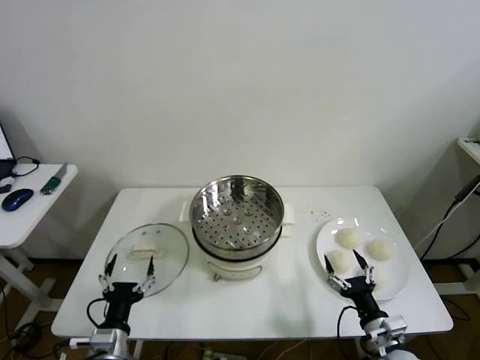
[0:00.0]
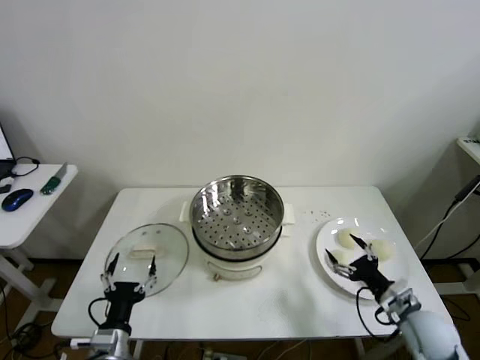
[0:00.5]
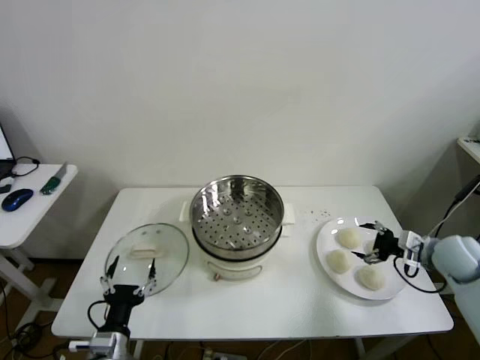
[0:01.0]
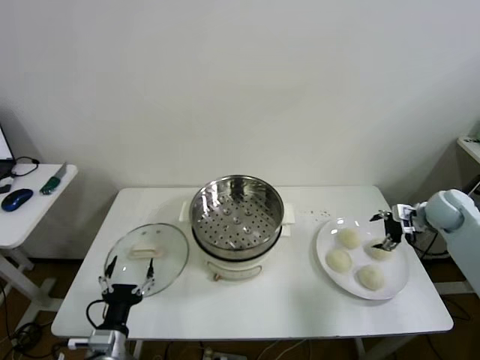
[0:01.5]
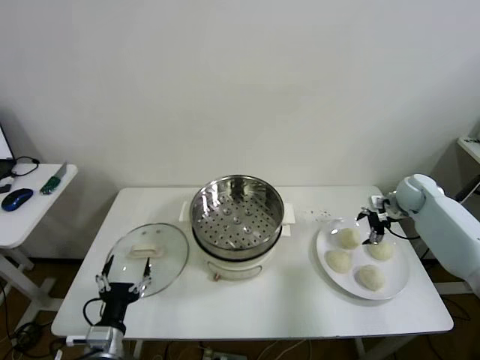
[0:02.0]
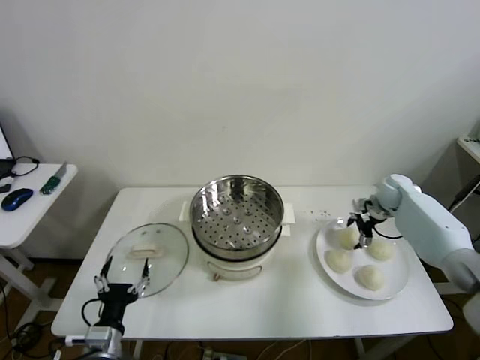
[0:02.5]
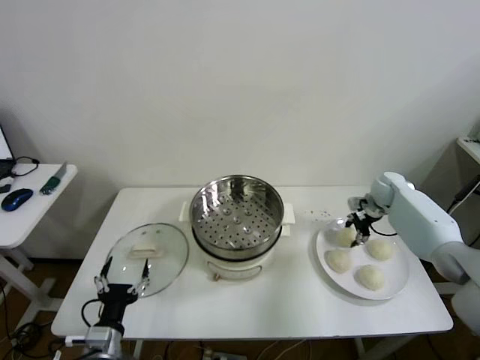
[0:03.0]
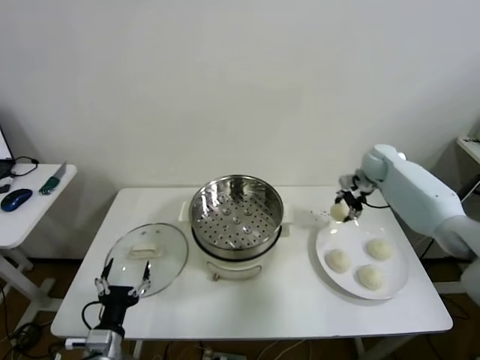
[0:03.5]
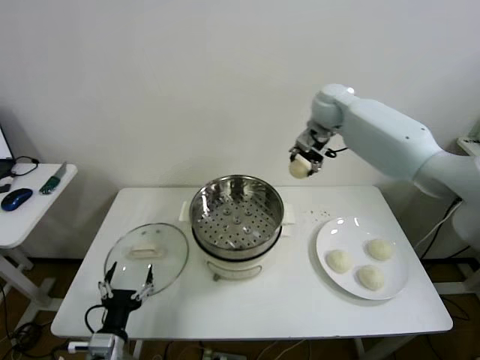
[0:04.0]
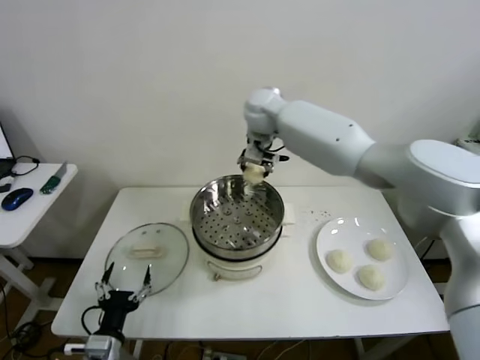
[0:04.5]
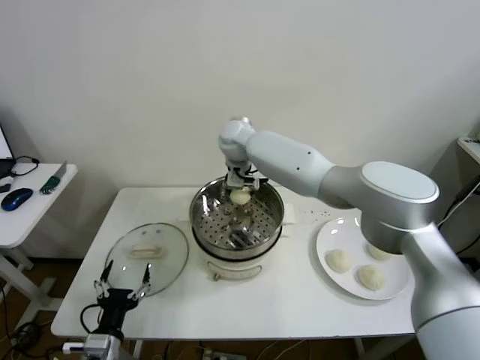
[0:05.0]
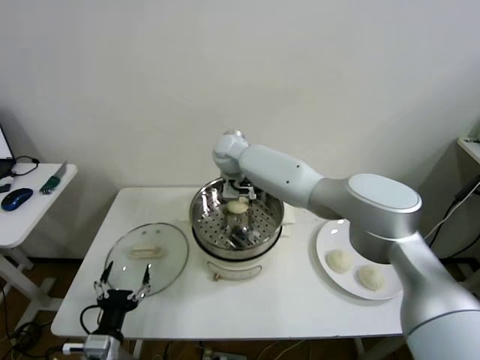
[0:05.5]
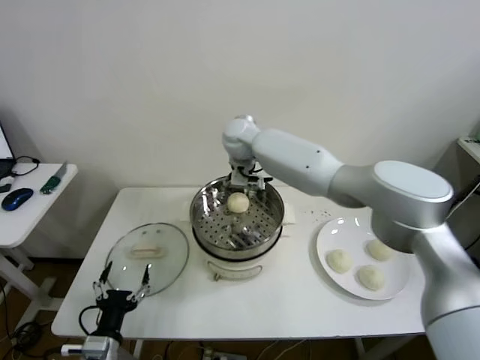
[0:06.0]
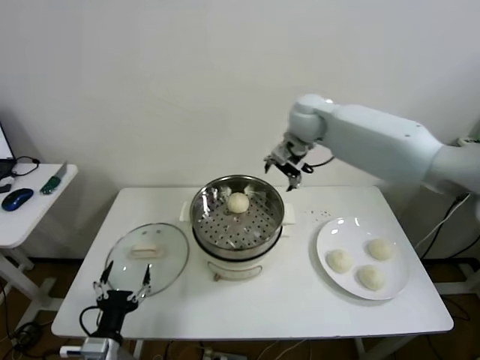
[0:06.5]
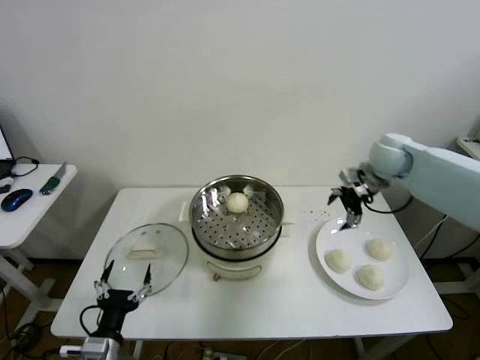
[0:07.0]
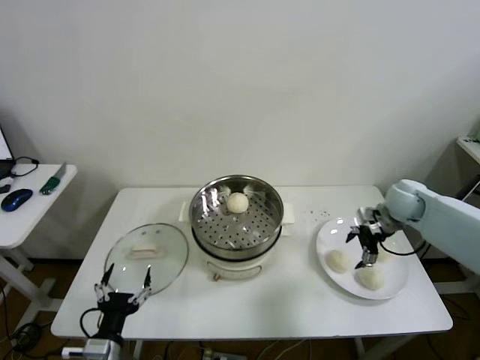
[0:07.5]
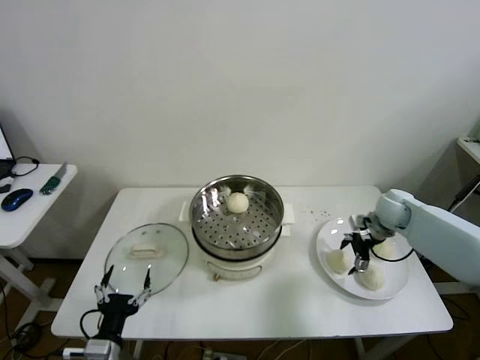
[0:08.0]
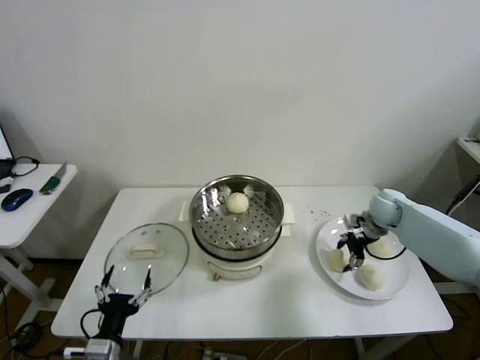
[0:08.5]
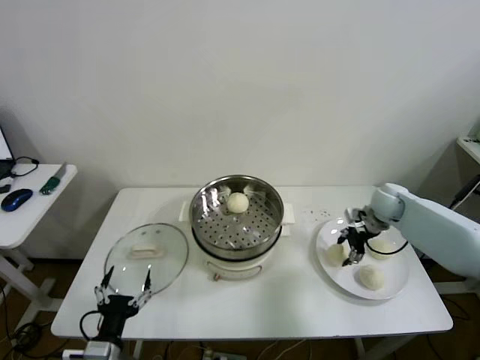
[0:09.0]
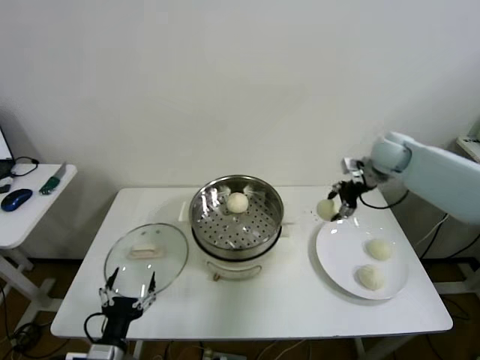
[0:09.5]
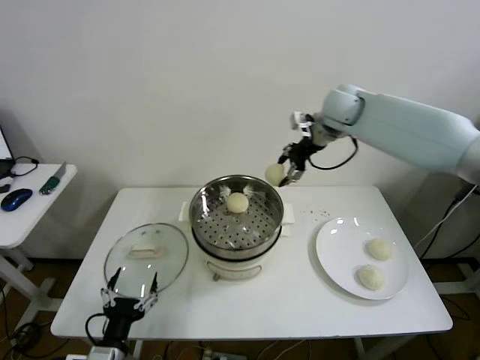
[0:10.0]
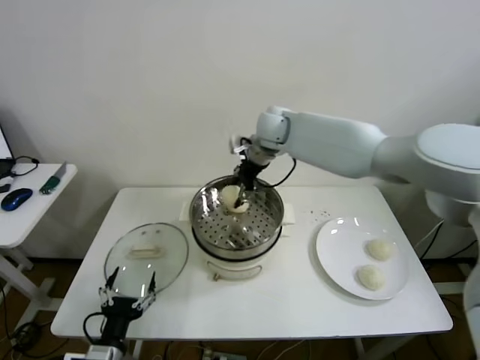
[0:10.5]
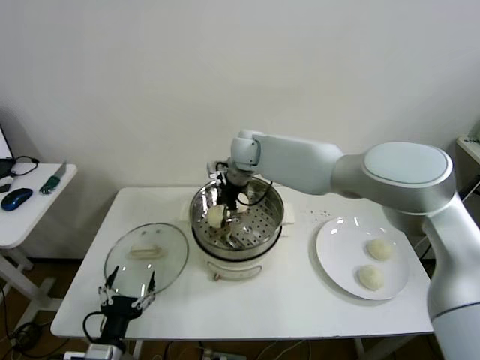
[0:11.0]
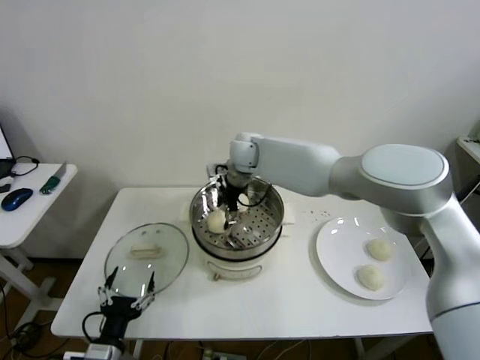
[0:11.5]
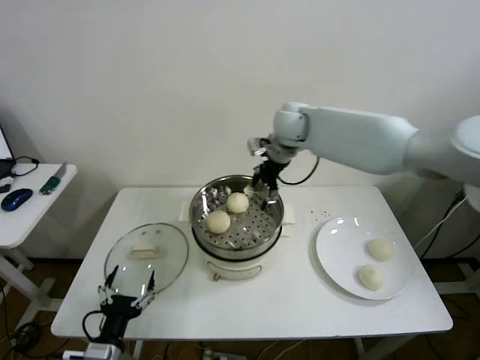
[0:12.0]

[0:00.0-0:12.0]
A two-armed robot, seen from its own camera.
Step, 0:00.0 to 0:02.5: Grasp the baozi in the plate with right gripper.
Step, 0:03.0 to 0:05.5: Place the baozi on the steamer with right gripper.
Step, 0:06.0 to 0:08.0: Grasp the baozi in the plate with right gripper.
Step, 0:09.0 to 0:11.0: Place the baozi on the steamer with right gripper.
0:02.0 to 0:04.0: The right gripper moves to the left and upward, about 35 cm, and closes up.
0:04.0 to 0:06.0: The right gripper goes some 20 cm to the left, and opens its fingers.
0:06.0 to 0:08.0: The right gripper travels to the right and downward by approximately 40 cm.
0:08.0 to 0:10.0: The right gripper moves upward and to the left, roughly 30 cm, and closes.
0:10.0 to 0:12.0: The right gripper heads to the left, covering about 10 cm, and opens its fingers.

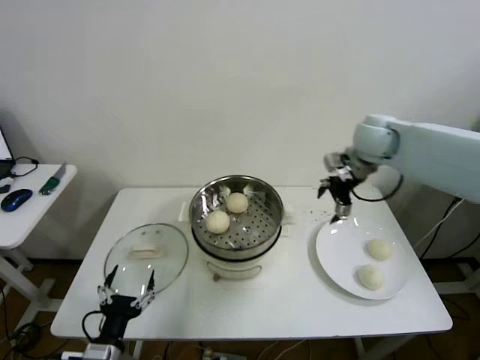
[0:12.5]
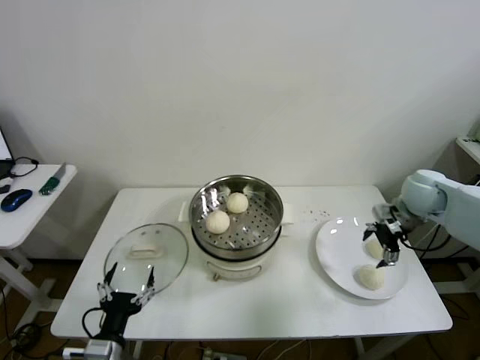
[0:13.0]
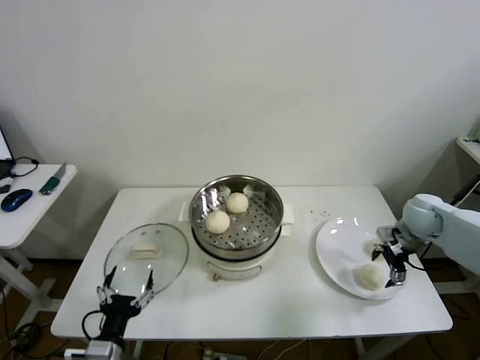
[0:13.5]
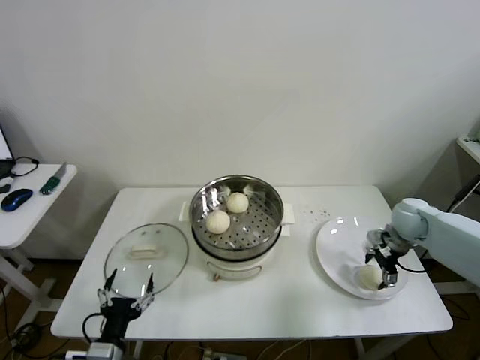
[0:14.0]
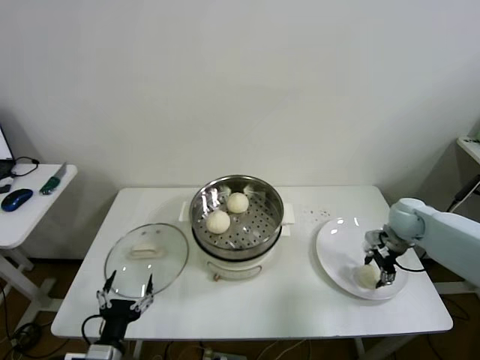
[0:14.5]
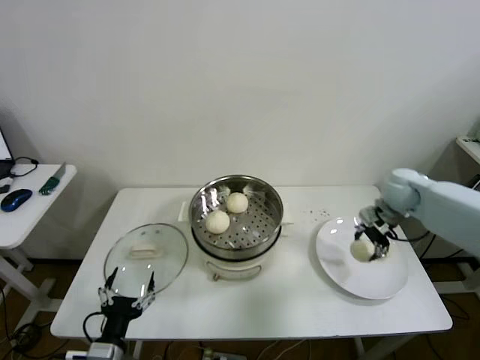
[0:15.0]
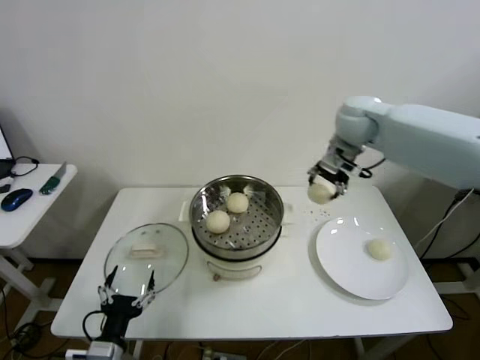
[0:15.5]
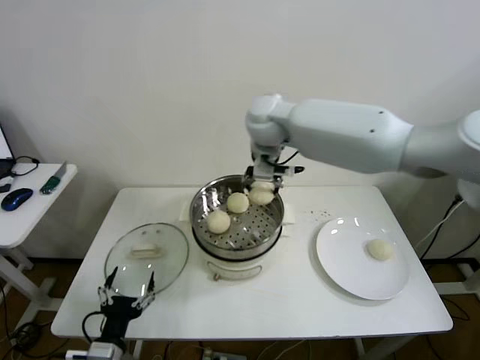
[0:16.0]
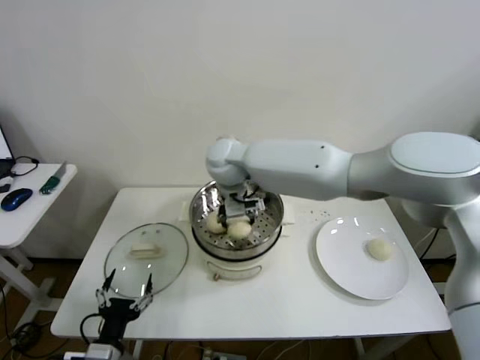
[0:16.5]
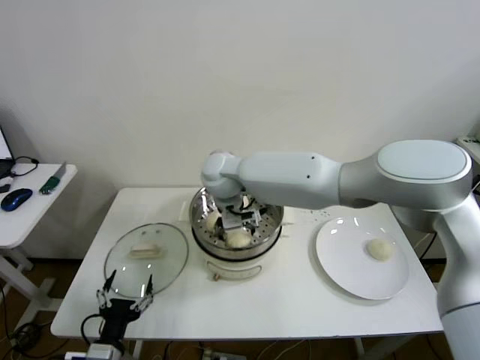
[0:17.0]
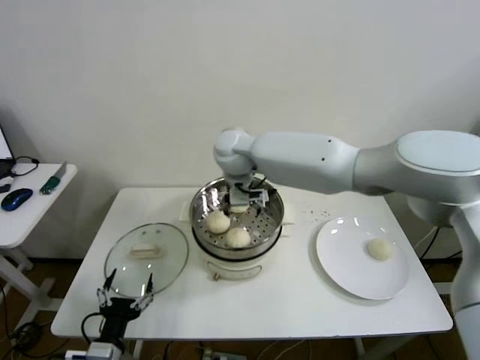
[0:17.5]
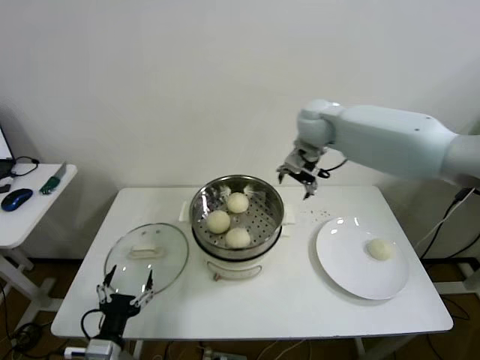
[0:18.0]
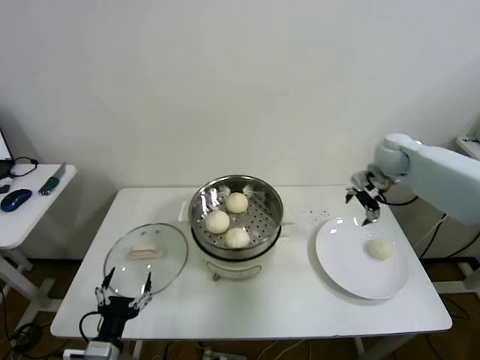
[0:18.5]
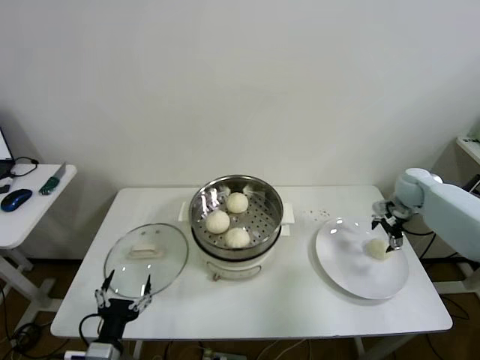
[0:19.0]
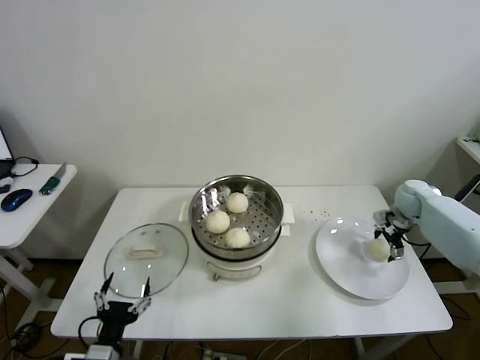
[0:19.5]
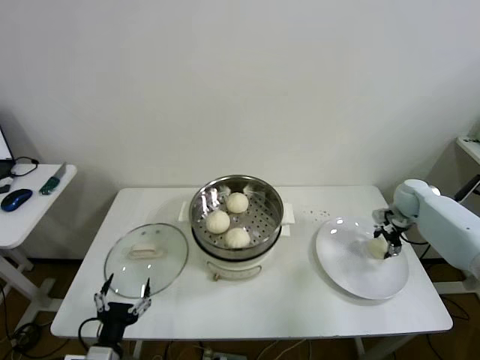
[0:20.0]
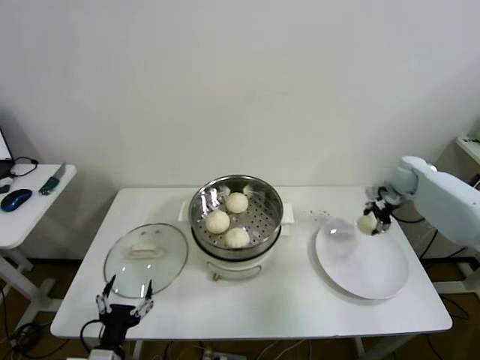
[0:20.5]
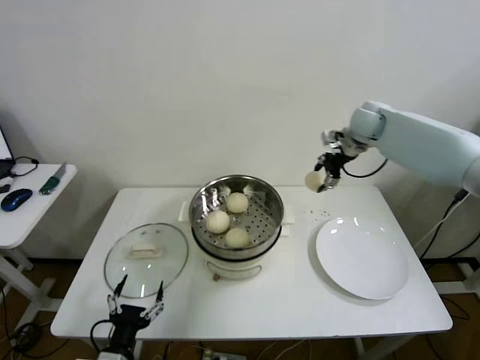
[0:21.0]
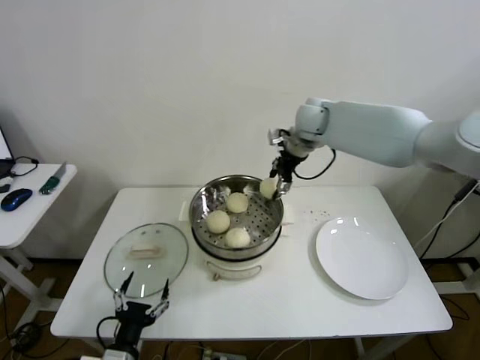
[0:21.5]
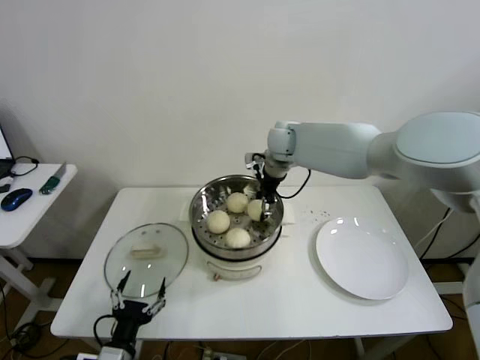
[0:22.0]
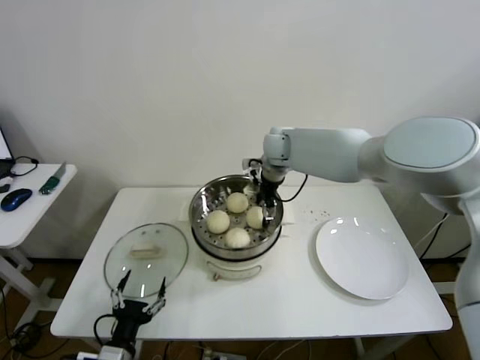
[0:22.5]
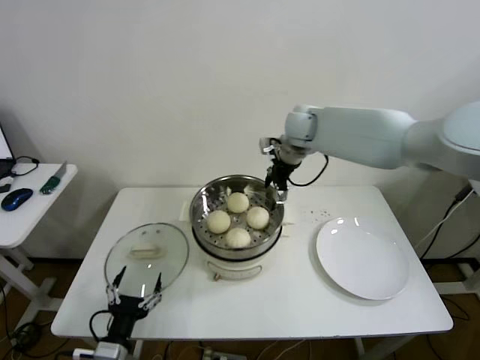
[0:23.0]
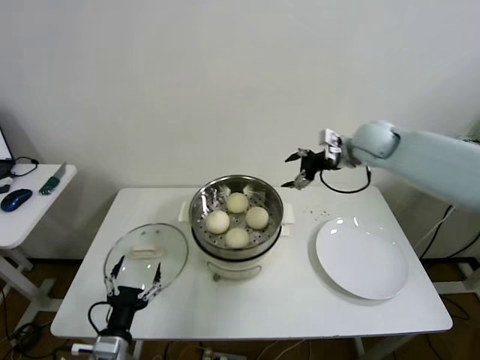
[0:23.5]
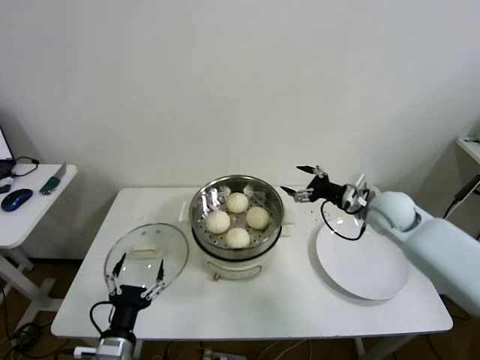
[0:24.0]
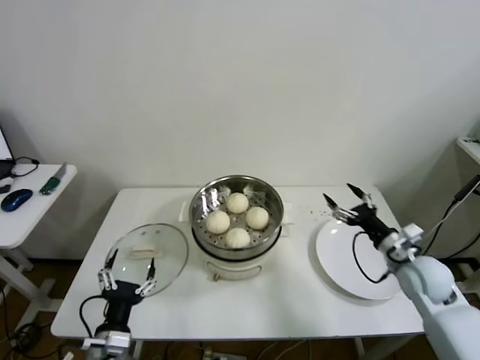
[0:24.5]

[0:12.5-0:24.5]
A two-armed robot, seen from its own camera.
Step, 0:12.5 to 0:14.0: Grasp the baozi in the plate with right gripper.
Step, 0:14.5 to 0:17.0: Place the baozi on the steamer with right gripper.
Step, 0:17.5 to 0:19.5: Grasp the baozi in the plate with right gripper.
Step, 0:20.0 to 0:22.0: Place the baozi on the steamer with right gripper.
0:12.5 to 0:14.5: The right gripper goes roughly 25 cm downward and to the right, and closes its fingers.
0:14.5 to 0:16.5: The right gripper moves to the left, roughly 40 cm.
0:16.5 to 0:18.5: The right gripper goes approximately 40 cm to the right, and opens its fingers.
0:18.5 to 0:20.5: The right gripper goes some 10 cm downward and to the right, and closes up.
0:20.5 to 0:22.5: The right gripper is displaced to the left by about 35 cm, and opens its fingers.
0:22.5 to 0:24.5: The right gripper goes roughly 40 cm to the right, backward and downward.

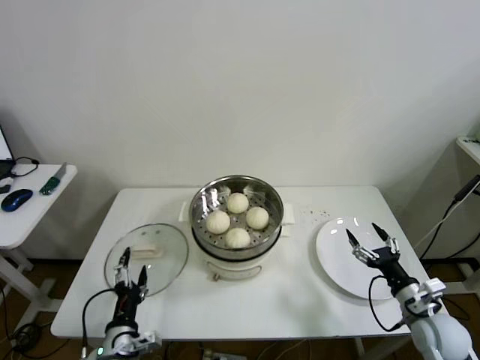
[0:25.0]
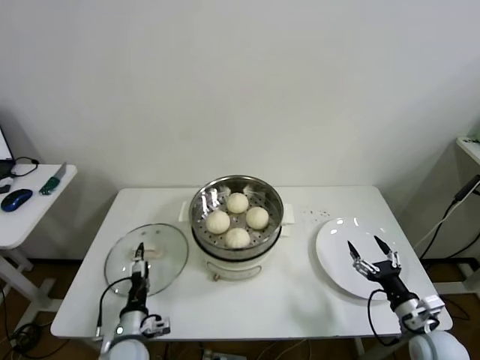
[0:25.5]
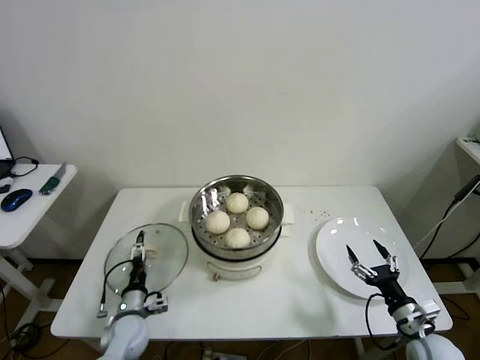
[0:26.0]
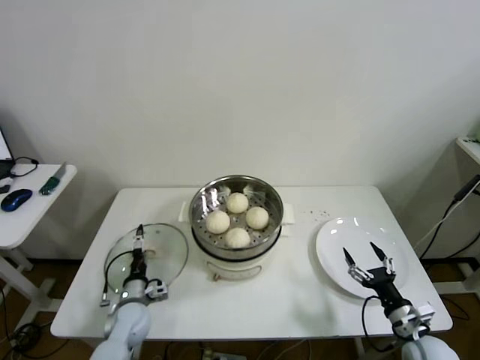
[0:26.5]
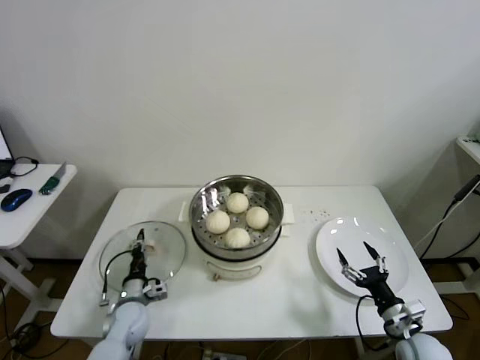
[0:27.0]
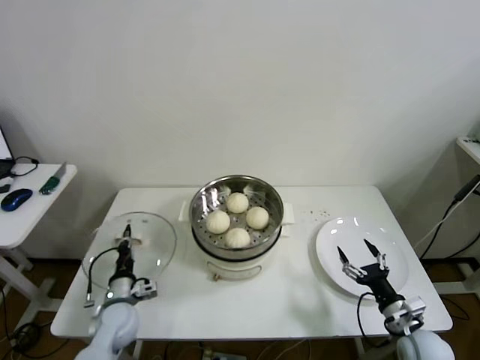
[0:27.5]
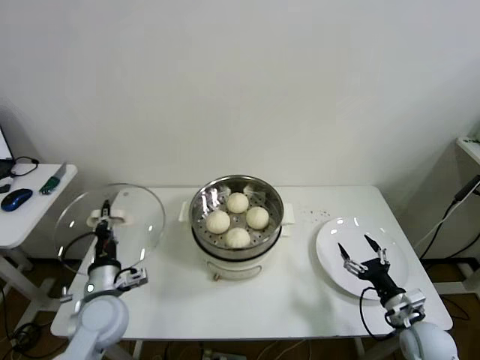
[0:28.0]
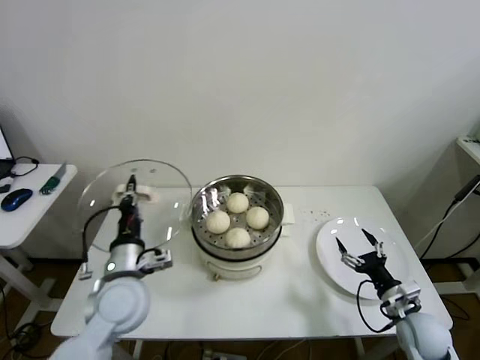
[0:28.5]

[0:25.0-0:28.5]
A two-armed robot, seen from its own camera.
Step, 0:25.0 to 0:27.0: Grasp the pot lid with left gripper.
0:25.0 to 0:27.0: The right gripper changes place by some 5 cm. The left gripper is displaced forward and downward by roughly 20 cm, and closes up.
0:27.0 to 0:28.5: The left gripper travels upward by some 20 cm, and closes its fingers.
